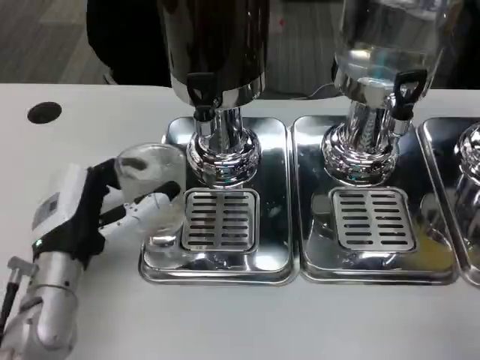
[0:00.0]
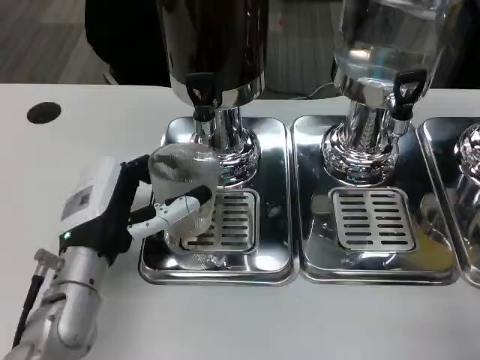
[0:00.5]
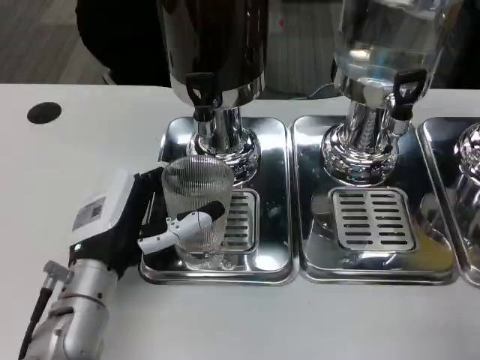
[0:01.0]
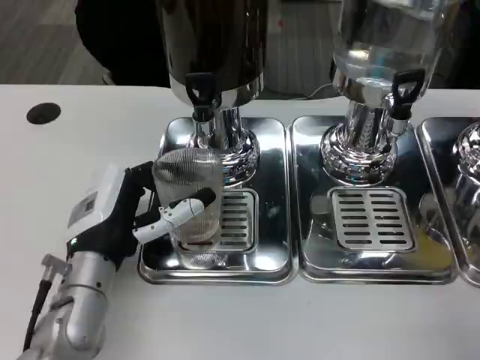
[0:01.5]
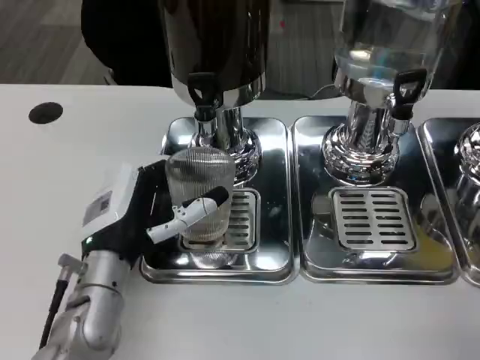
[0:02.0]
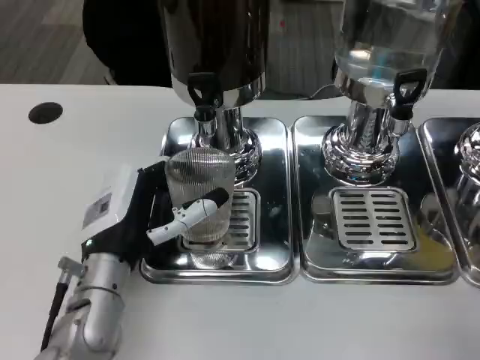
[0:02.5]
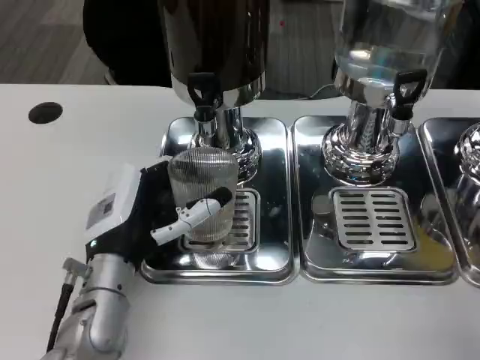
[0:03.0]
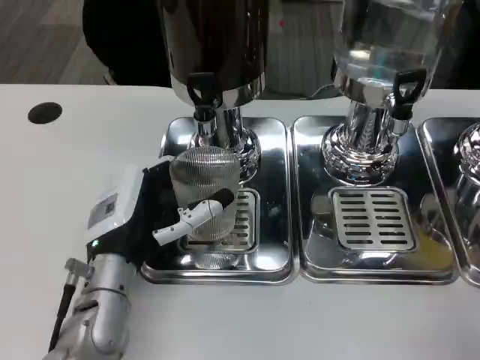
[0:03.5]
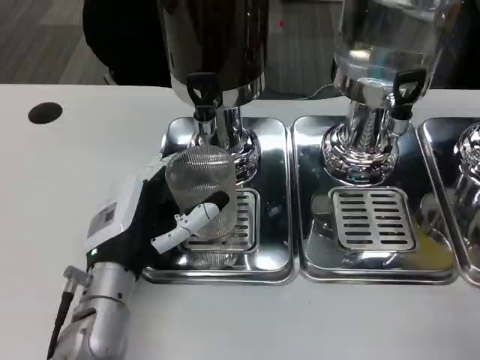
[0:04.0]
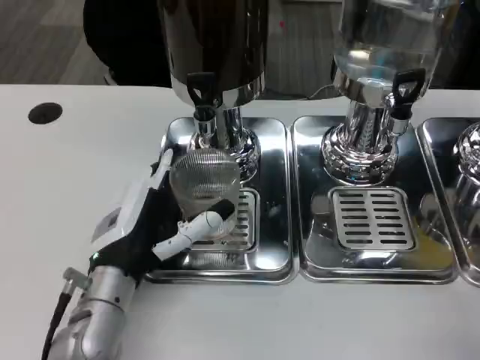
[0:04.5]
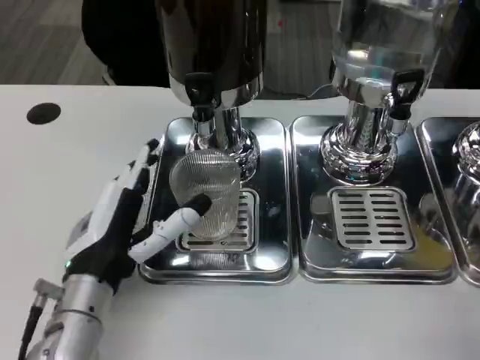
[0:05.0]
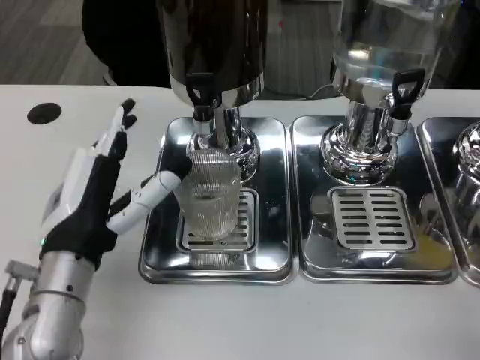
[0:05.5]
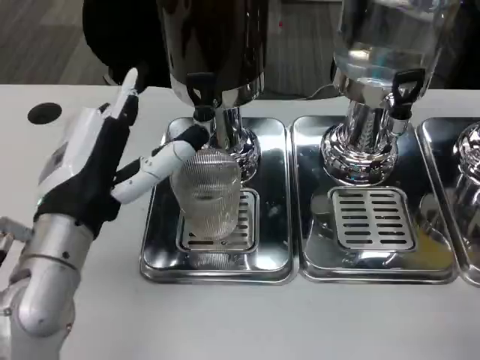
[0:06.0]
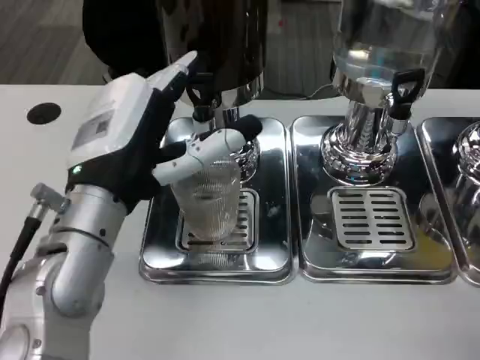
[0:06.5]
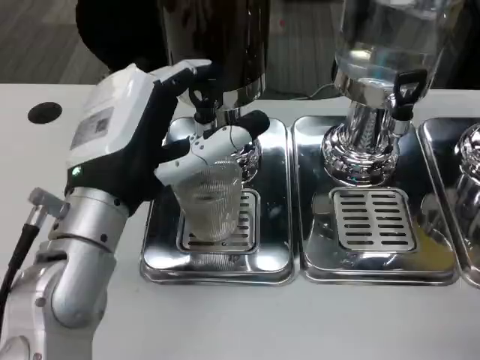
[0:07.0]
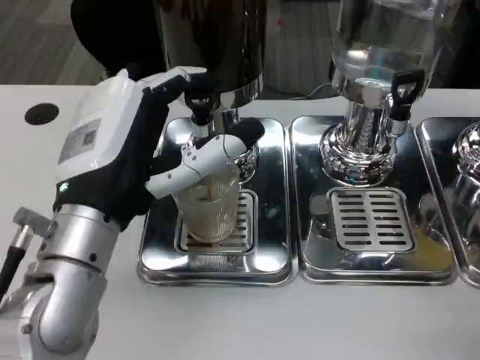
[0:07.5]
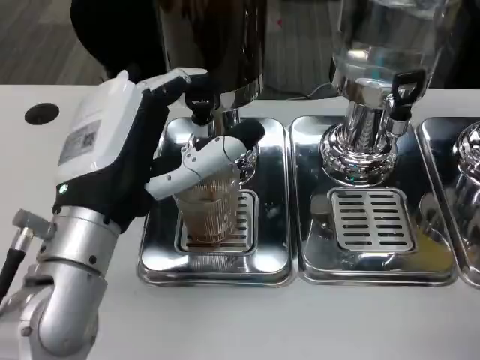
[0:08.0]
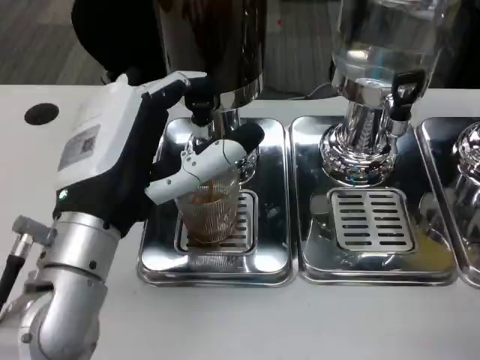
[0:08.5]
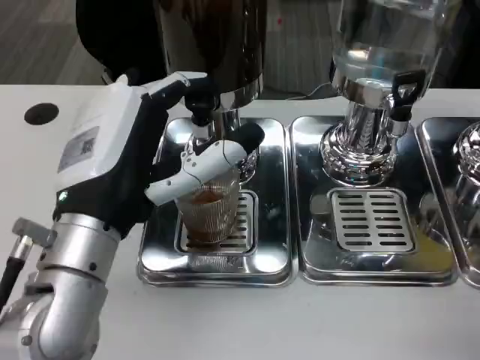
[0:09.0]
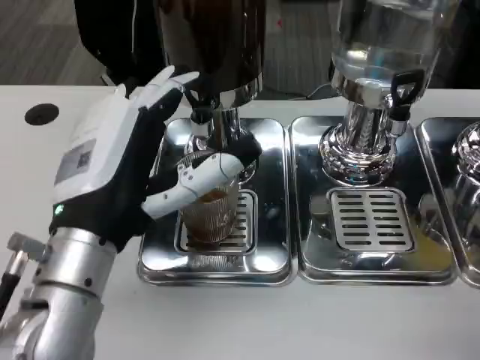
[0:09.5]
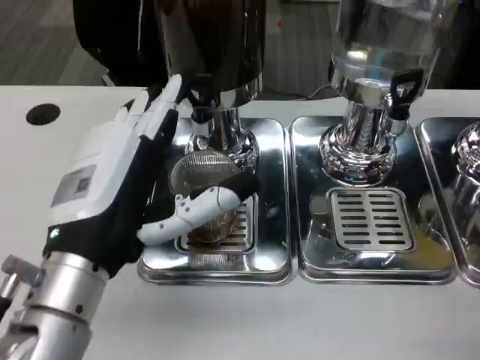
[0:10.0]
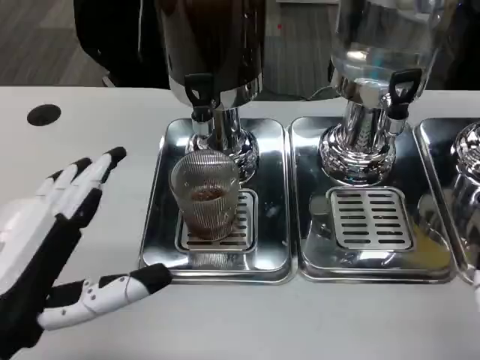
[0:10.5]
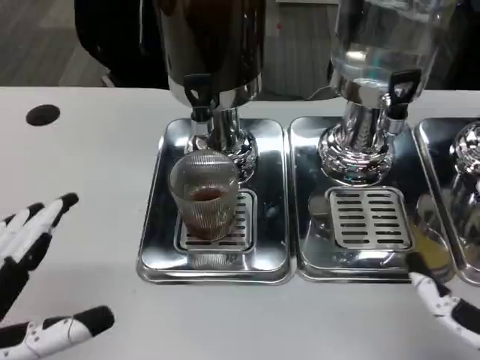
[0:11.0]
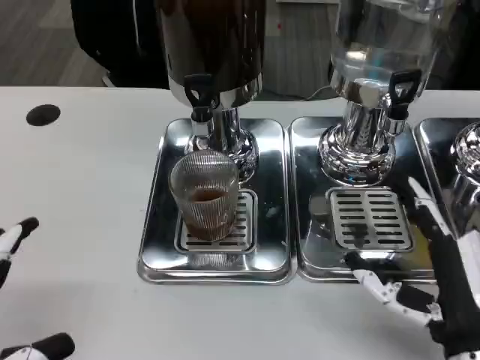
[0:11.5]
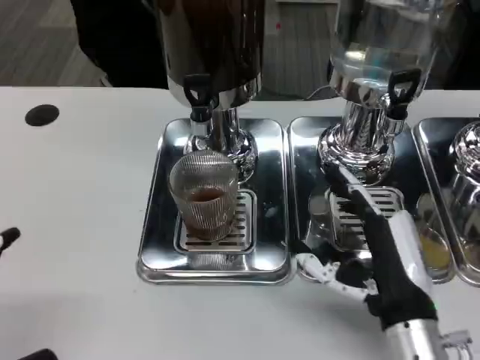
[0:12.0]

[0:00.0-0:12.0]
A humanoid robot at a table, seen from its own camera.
Task of the whole recording: Grasp the cup under the faucet to collect the drink, then remove the cup.
0:00.0 to 0:02.0: The hands move only a little.
0:02.0 to 0:04.0: Neither hand changes place.
0:04.0 to 0:06.0: The left hand is displaced upward by some 10 cm.
0:10.0 to 0:12.0: The right hand moves forward and to the left, roughly 15 cm. The left hand moves to the left and backward, about 20 cm.

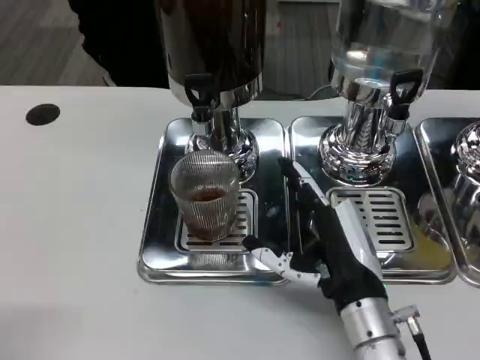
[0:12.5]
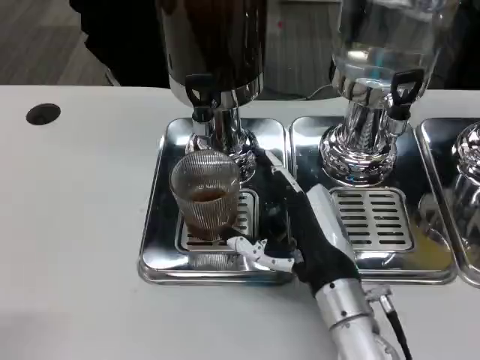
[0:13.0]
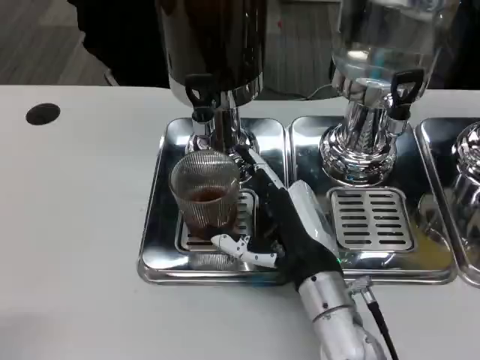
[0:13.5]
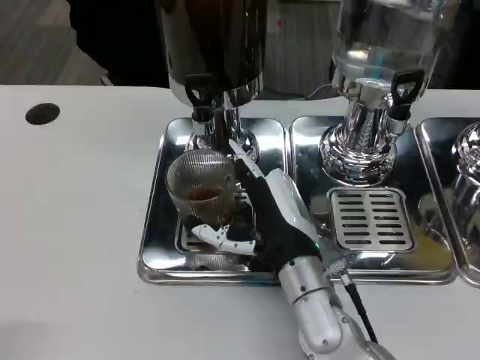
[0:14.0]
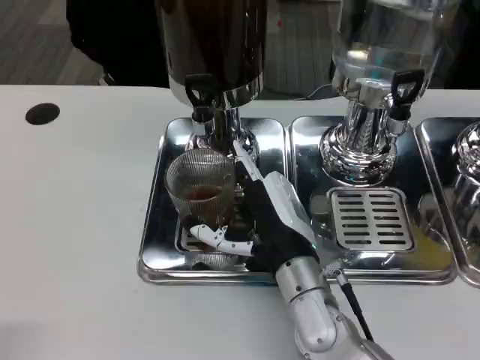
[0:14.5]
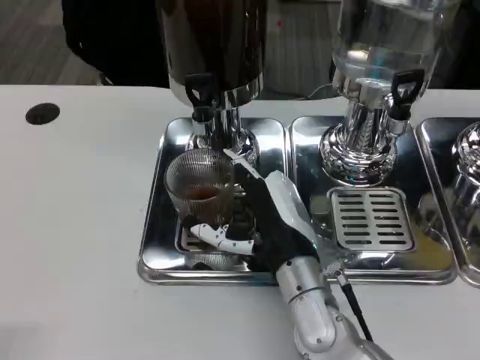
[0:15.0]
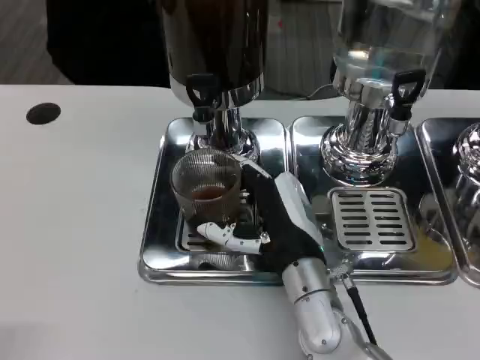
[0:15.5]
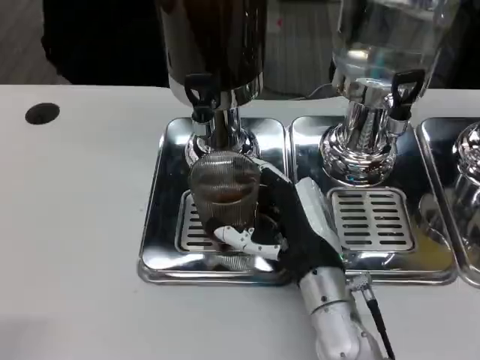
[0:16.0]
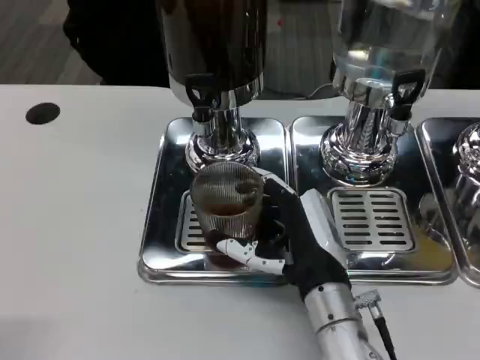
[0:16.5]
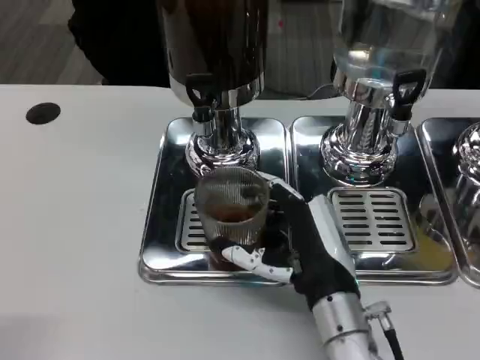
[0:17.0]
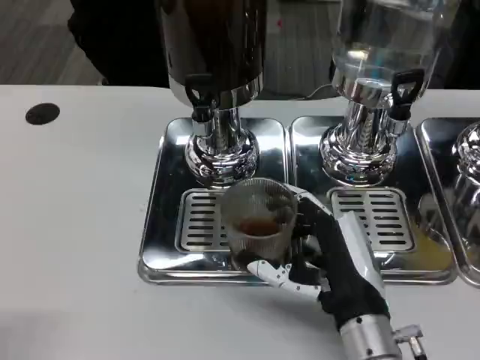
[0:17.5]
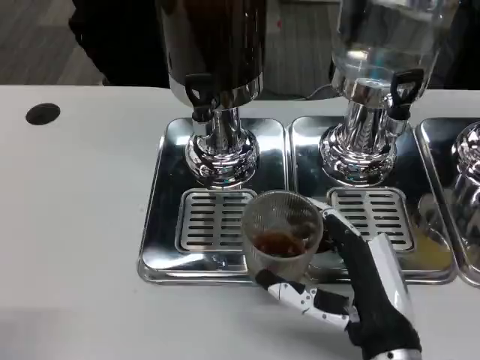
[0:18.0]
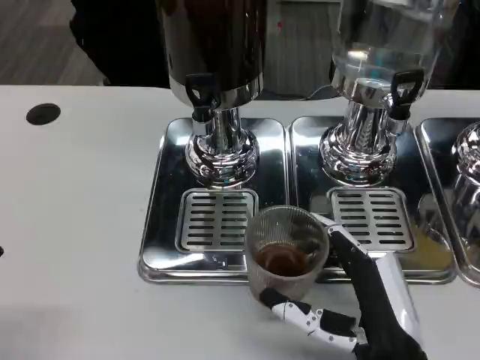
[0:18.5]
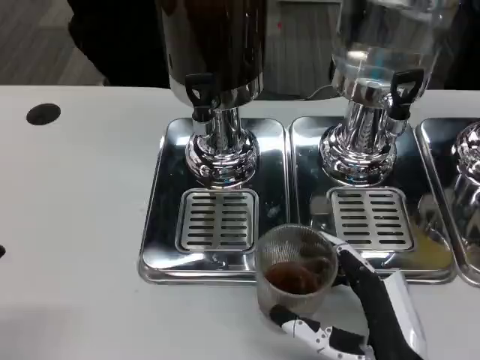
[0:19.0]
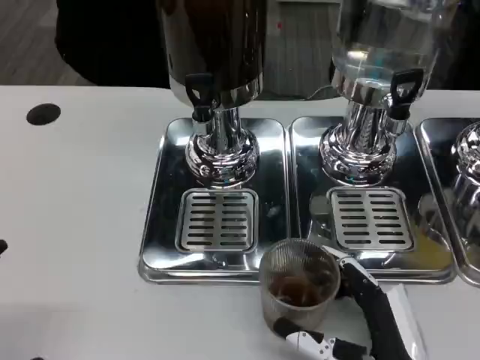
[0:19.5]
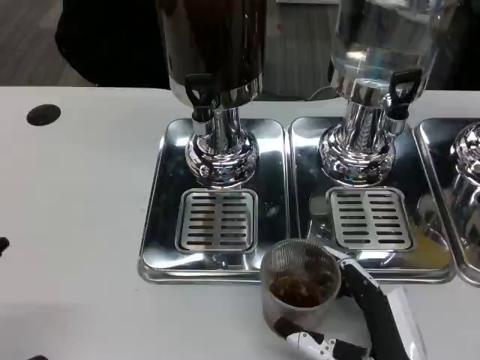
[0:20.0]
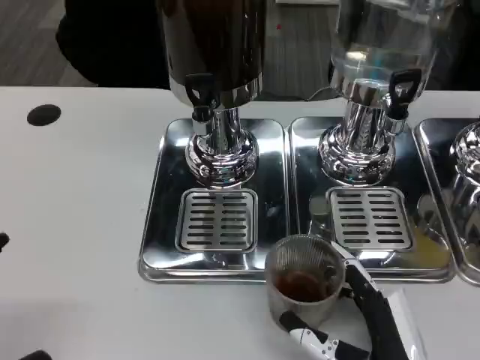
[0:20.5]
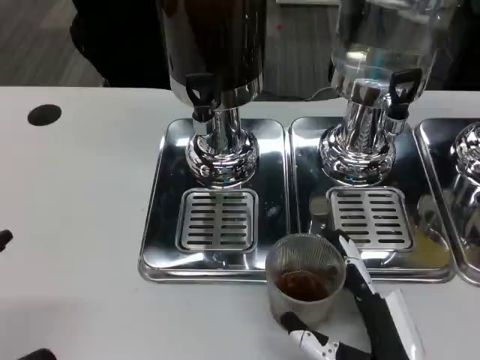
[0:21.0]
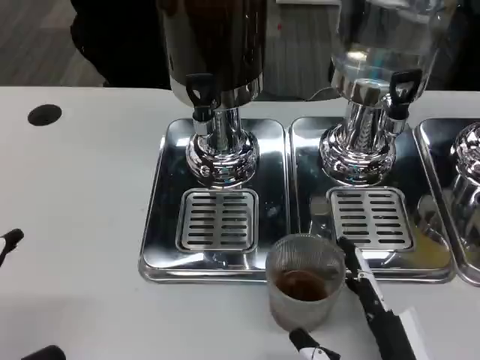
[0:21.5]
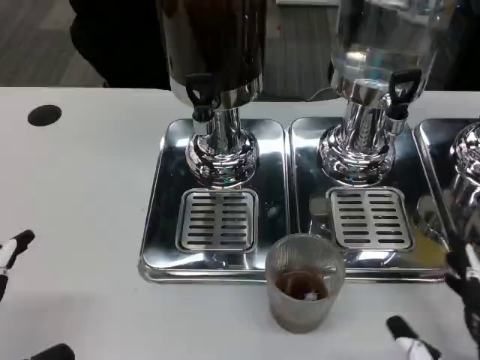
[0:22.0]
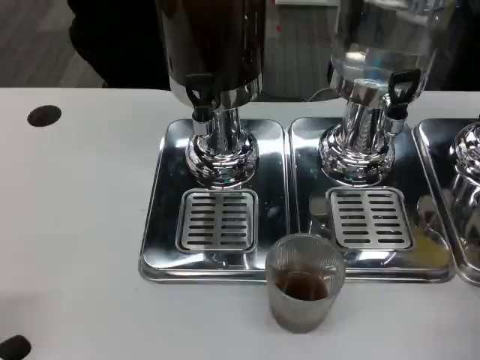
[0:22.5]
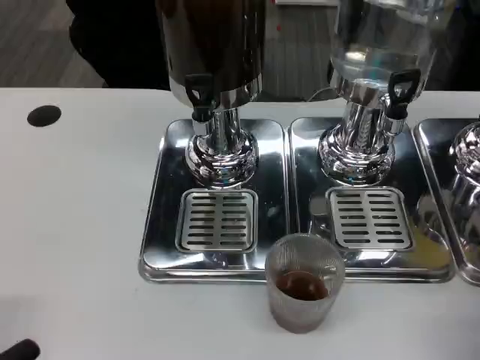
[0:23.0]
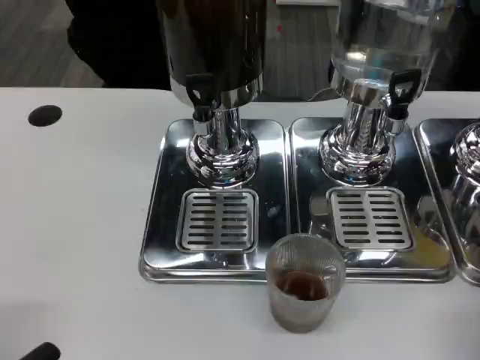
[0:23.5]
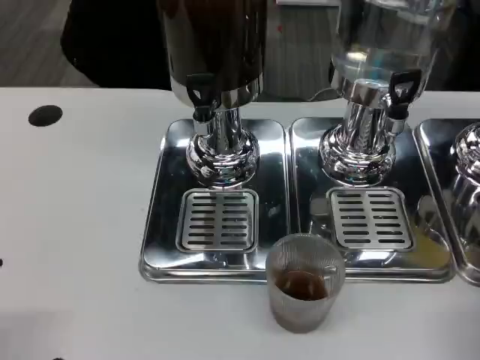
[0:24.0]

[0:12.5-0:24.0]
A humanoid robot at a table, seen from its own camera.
Task of the whole recording: Grasp the cup under the faucet to collect the drink, then remove the cup.
0:12.5 to 0:14.5: The right hand shifts roughly 5 cm to the left.
0:14.5 to 0:16.5: There are only small adjustments of the hands.
0:16.5 to 0:18.5: The right hand moves backward and to the right, about 10 cm.
0:18.5 to 0:20.0: There are only small adjustments of the hands.
0:20.0 to 0:22.0: The right hand is displaced to the right by some 5 cm.
0:22.0 to 0:24.0: The right hand heads to the right, covering approximately 5 cm.

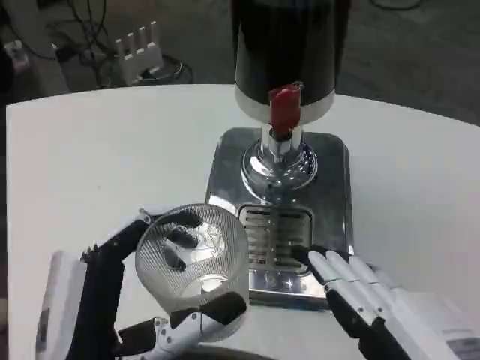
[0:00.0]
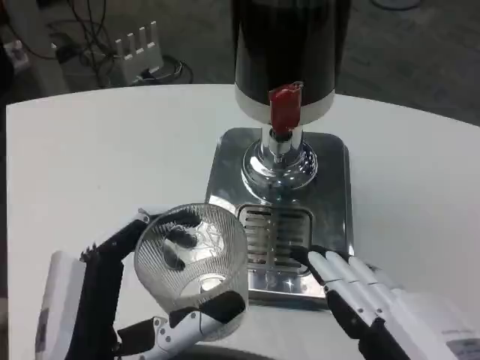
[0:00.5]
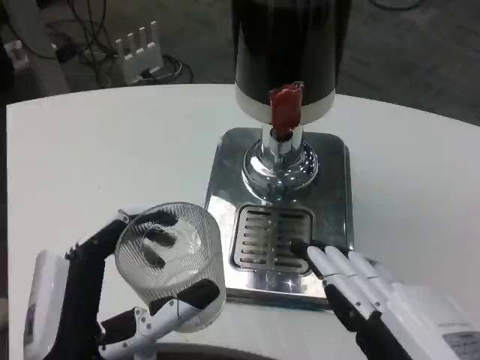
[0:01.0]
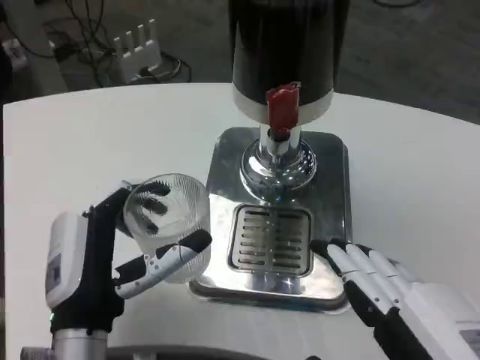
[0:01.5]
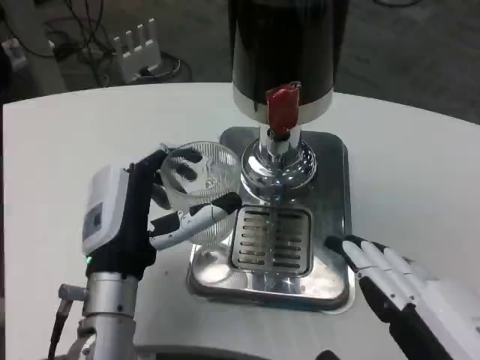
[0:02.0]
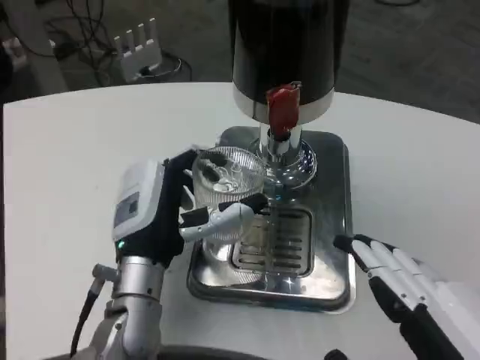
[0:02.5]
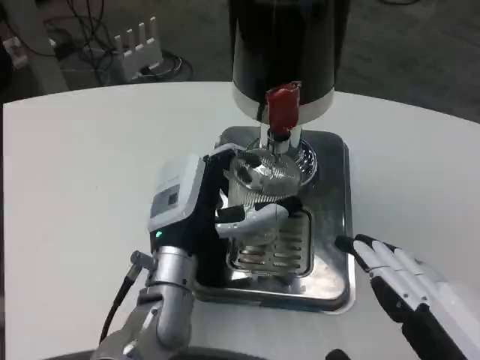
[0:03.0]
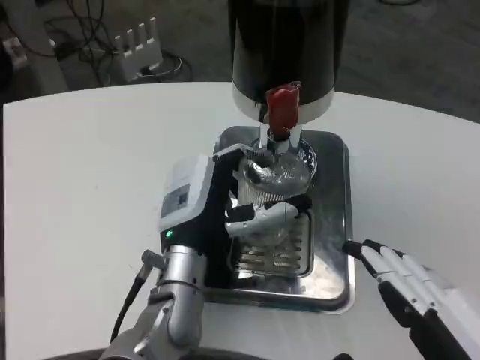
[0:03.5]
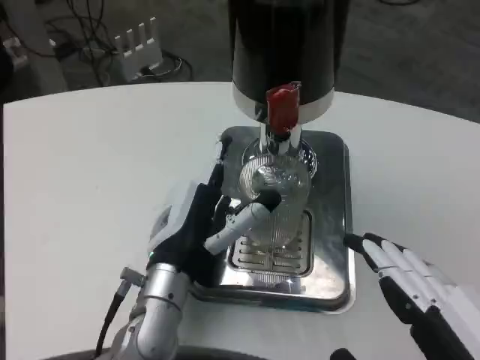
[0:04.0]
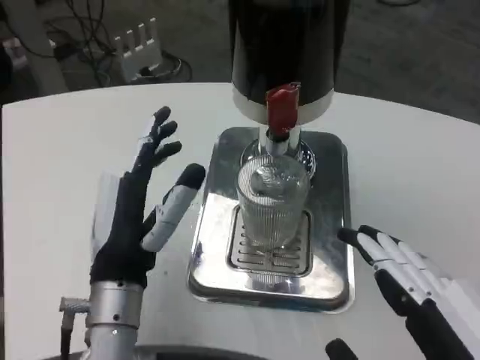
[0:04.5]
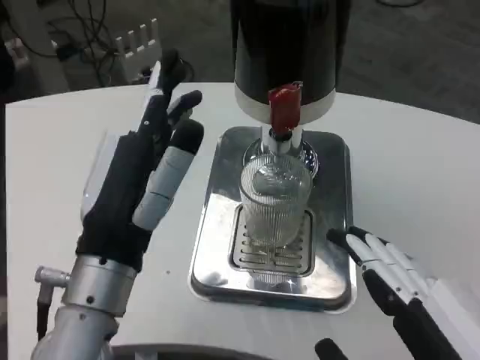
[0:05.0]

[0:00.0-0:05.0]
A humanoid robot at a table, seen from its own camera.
Task of the whole recording: Grasp the cup under the faucet to collect the drink, then remove the cup.
0:00.0 to 0:02.5: The left hand goes some 15 cm forward.
0:02.5 to 0:05.0: The left hand travels backward and upward by some 10 cm.
